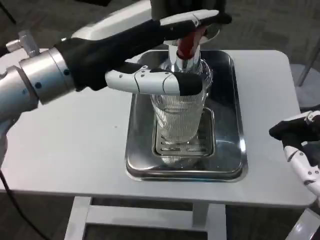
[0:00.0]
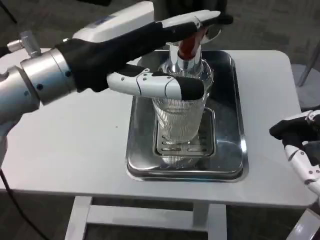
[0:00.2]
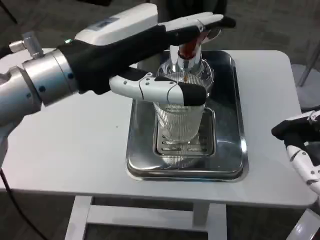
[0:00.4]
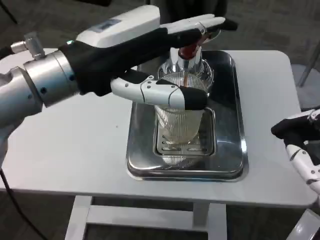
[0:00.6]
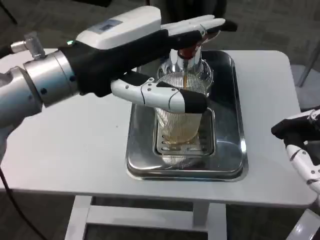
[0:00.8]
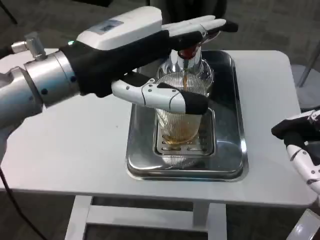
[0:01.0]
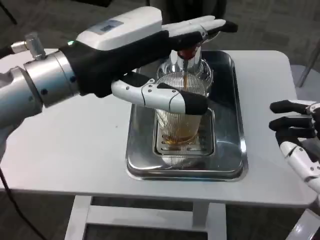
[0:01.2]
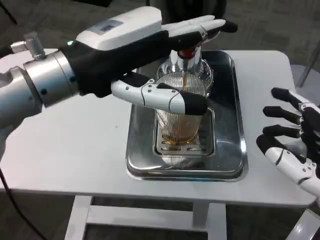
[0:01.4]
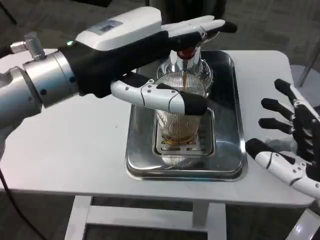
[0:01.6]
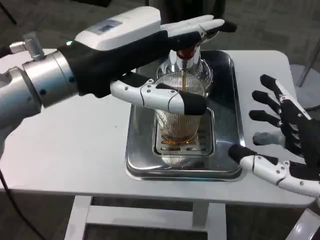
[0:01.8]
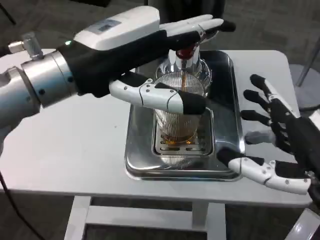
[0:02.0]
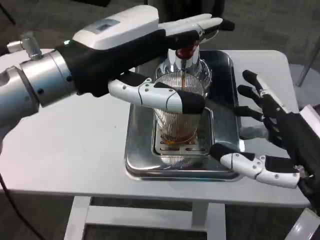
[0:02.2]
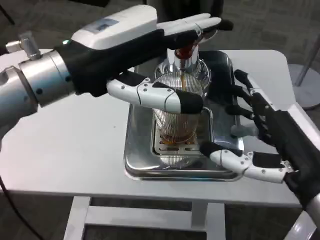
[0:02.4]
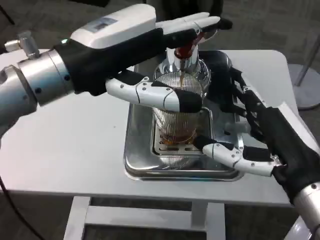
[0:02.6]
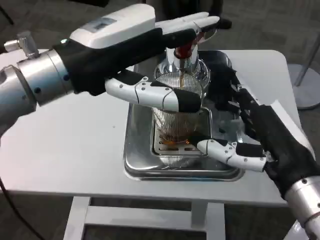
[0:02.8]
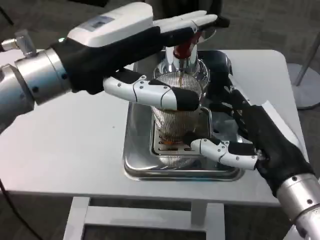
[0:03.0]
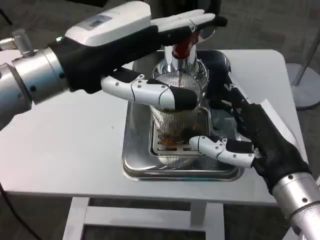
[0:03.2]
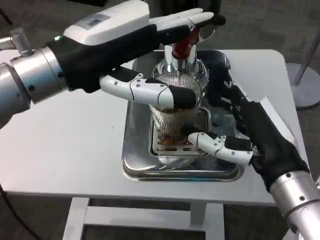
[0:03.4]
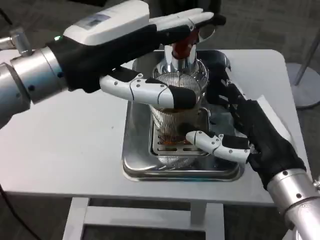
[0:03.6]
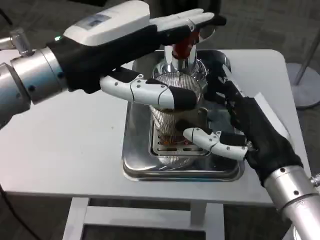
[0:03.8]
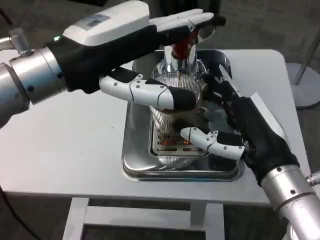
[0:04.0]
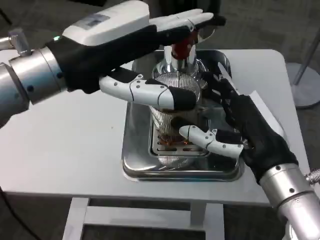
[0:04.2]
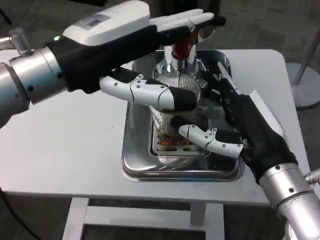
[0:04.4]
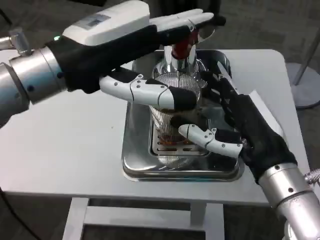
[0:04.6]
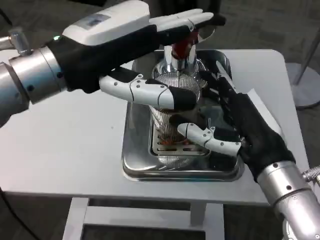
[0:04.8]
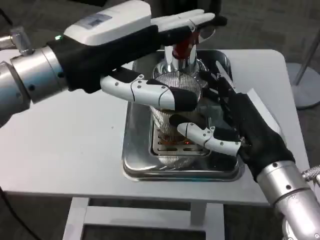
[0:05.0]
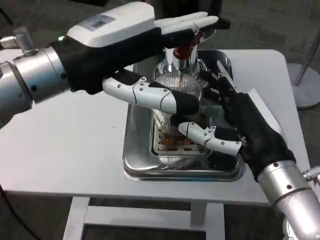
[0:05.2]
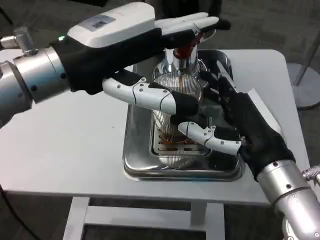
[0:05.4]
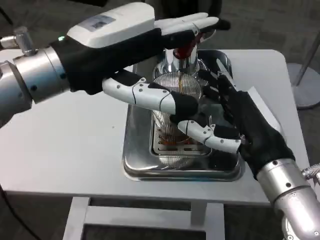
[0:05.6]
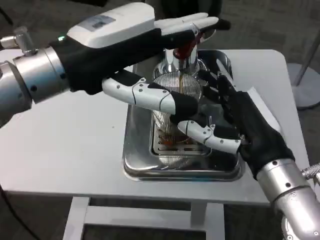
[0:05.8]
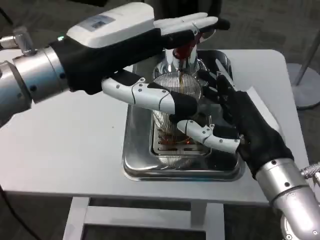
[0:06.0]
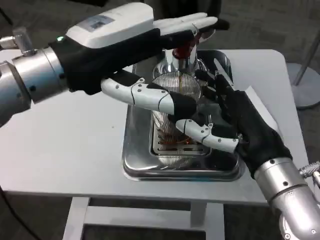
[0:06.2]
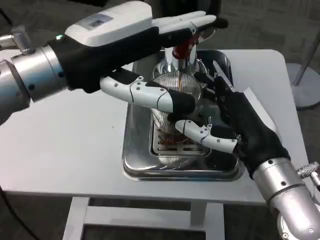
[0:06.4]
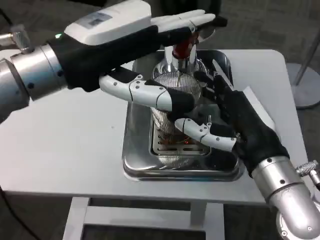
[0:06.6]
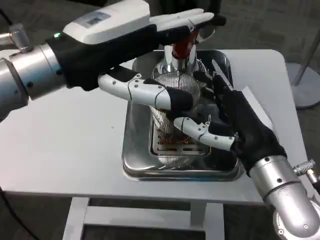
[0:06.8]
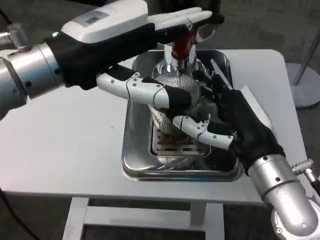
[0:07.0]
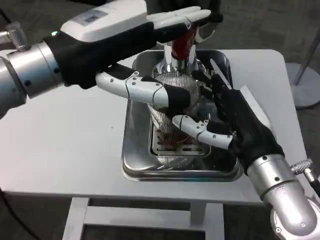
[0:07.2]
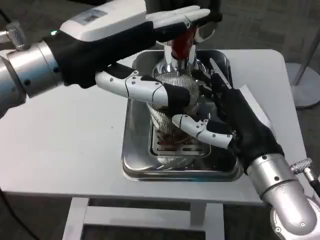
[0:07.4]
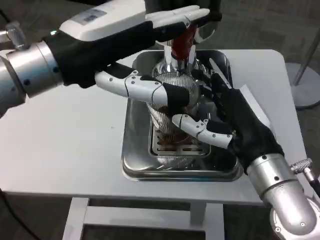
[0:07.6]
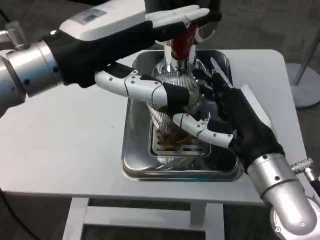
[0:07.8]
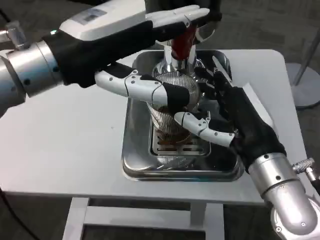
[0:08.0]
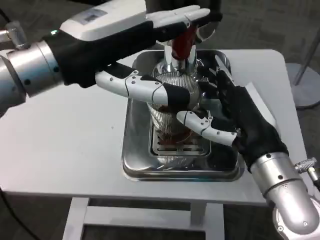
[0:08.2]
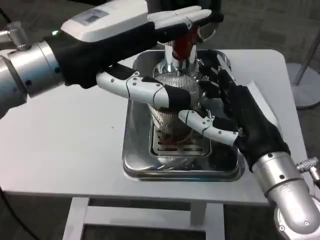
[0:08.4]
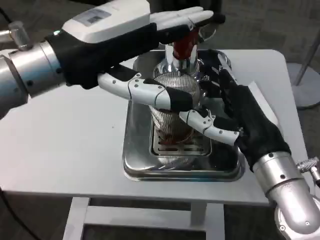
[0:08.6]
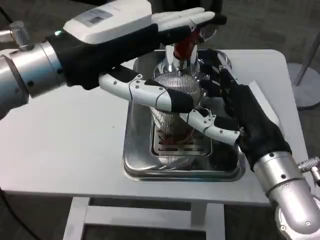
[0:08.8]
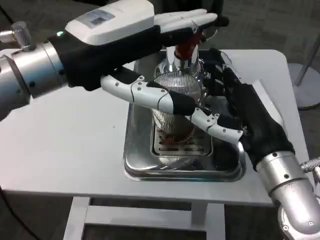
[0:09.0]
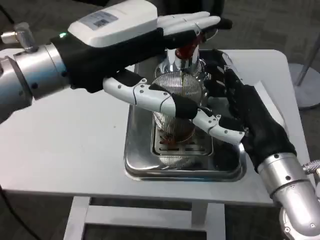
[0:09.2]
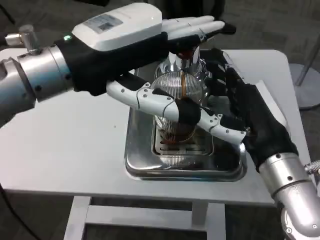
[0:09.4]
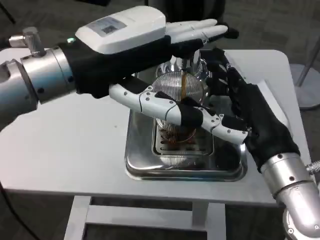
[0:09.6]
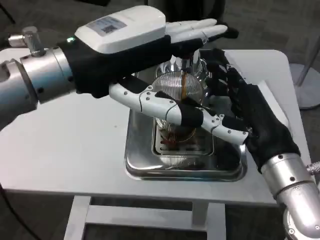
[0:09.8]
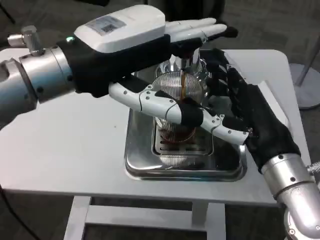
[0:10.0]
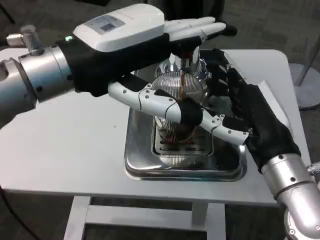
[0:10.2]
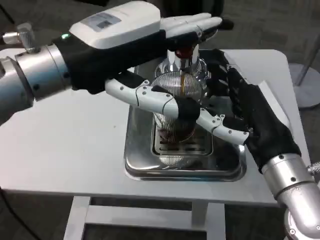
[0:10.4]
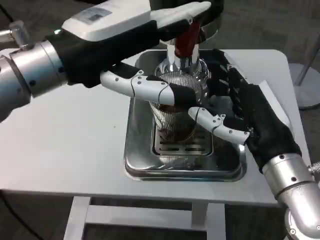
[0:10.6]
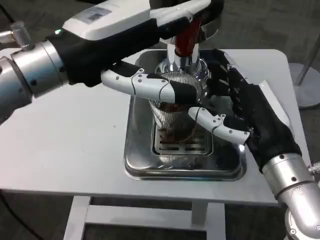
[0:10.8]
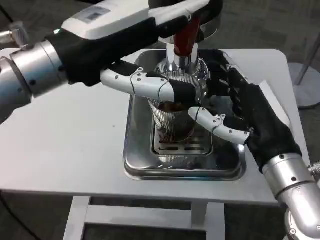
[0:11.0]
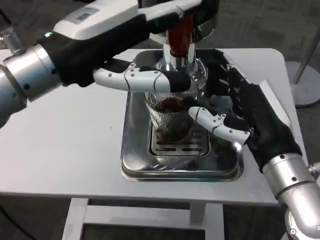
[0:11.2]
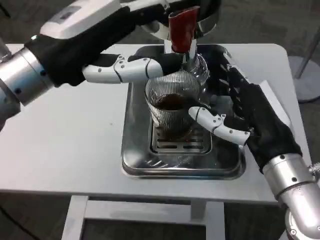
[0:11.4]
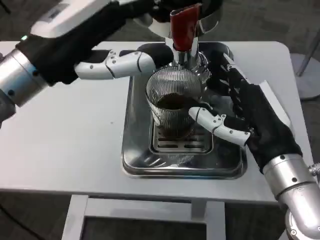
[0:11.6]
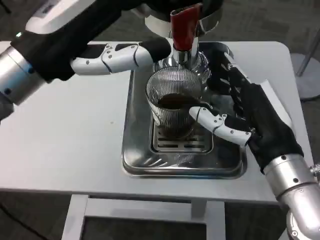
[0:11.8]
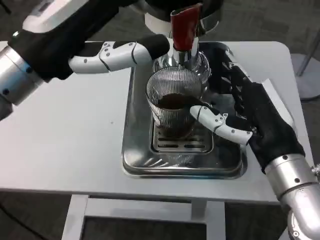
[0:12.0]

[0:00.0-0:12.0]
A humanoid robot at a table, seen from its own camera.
Task of the whole recording: Grasp the cup under the faucet to collect the drink, then remove the cup.
0:01.6 to 0:03.0: The right hand goes approximately 10 cm forward and to the left.
0:04.4 to 0:06.0: Neither hand changes place.
0:09.0 to 0:10.4: Both hands stay about where they are.

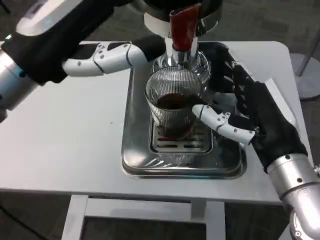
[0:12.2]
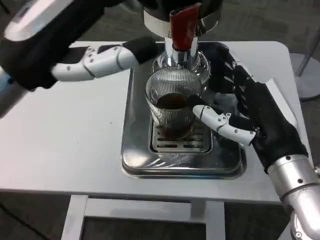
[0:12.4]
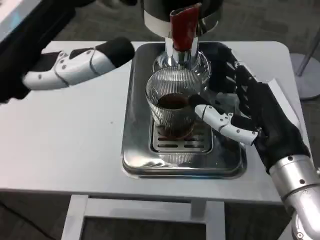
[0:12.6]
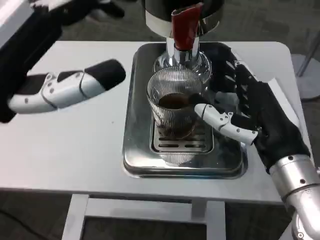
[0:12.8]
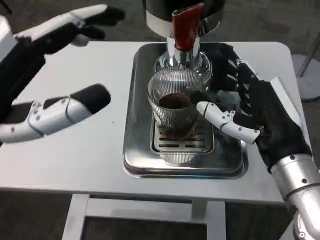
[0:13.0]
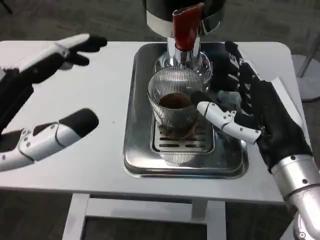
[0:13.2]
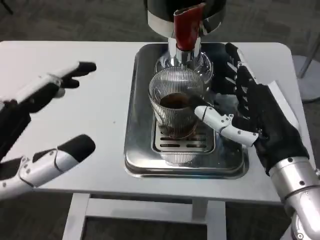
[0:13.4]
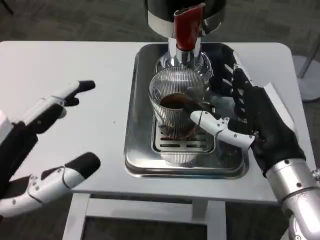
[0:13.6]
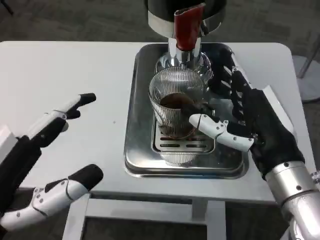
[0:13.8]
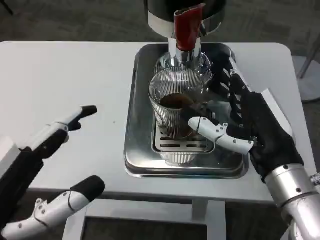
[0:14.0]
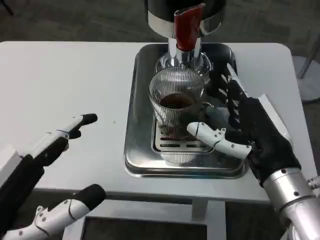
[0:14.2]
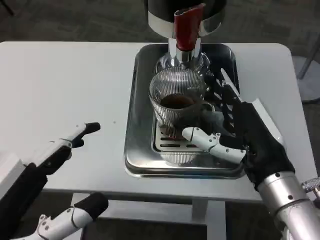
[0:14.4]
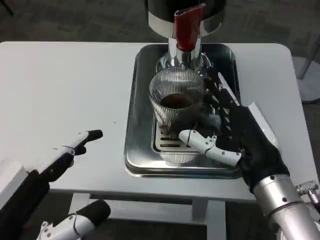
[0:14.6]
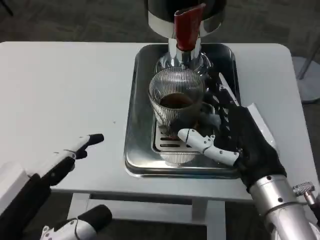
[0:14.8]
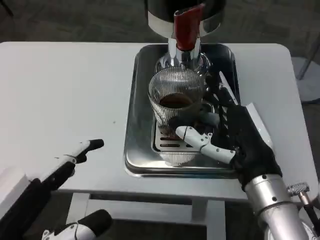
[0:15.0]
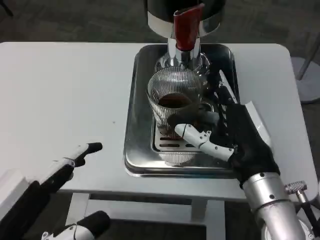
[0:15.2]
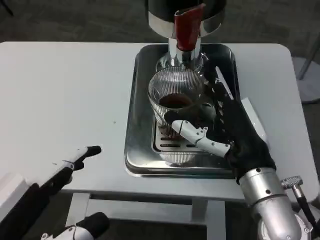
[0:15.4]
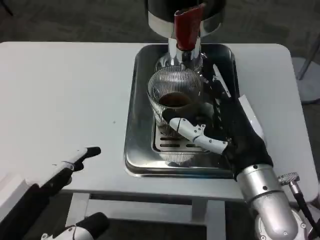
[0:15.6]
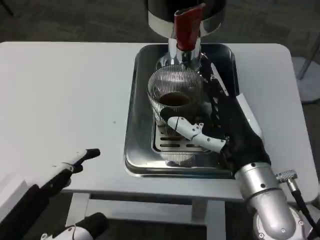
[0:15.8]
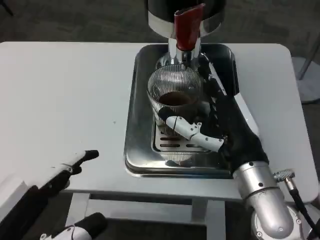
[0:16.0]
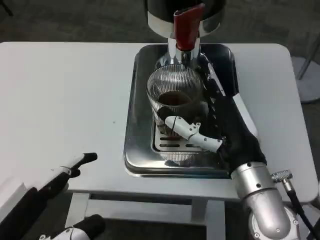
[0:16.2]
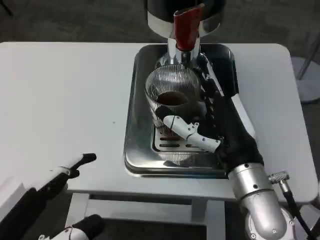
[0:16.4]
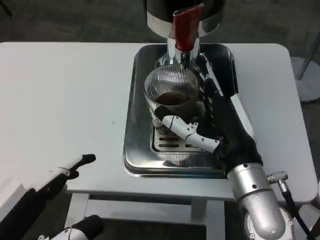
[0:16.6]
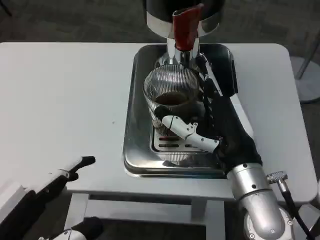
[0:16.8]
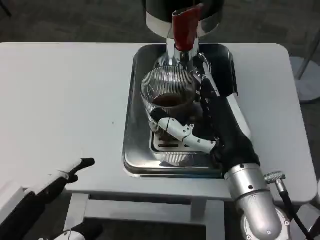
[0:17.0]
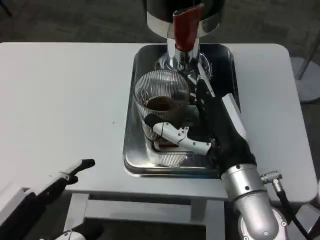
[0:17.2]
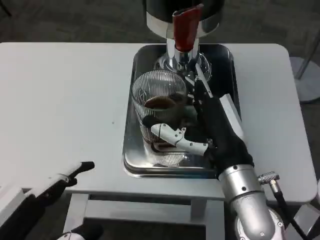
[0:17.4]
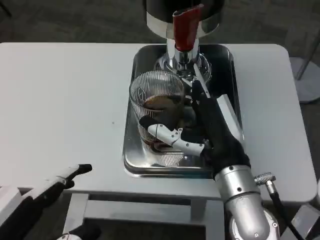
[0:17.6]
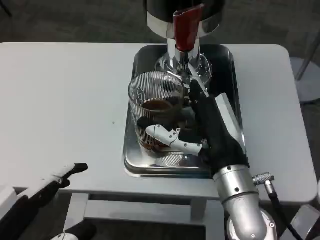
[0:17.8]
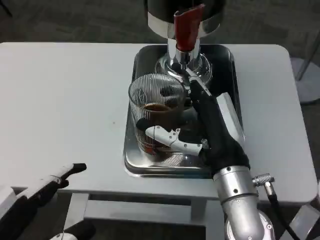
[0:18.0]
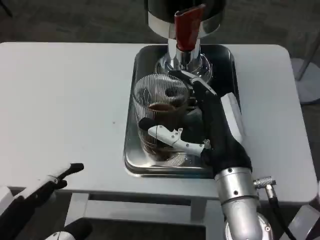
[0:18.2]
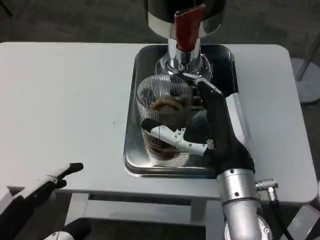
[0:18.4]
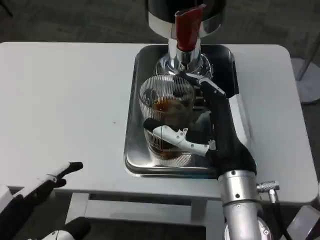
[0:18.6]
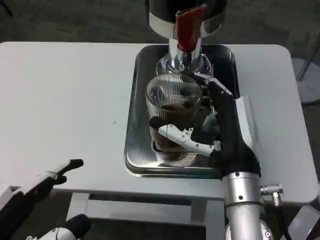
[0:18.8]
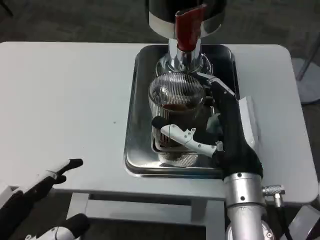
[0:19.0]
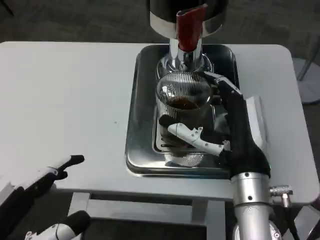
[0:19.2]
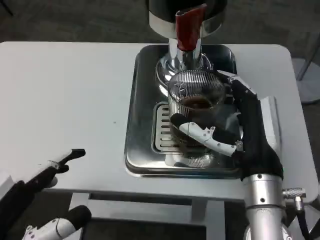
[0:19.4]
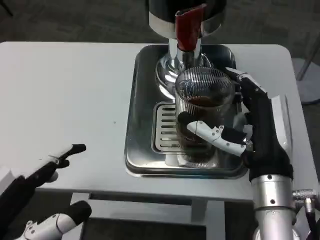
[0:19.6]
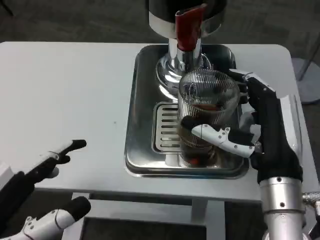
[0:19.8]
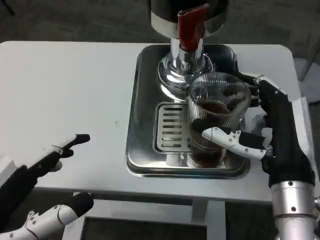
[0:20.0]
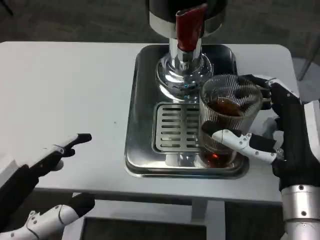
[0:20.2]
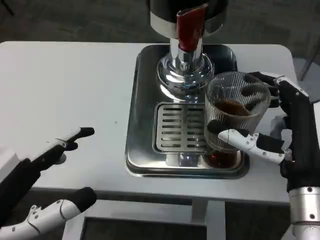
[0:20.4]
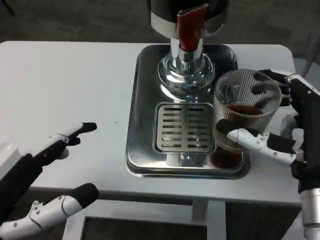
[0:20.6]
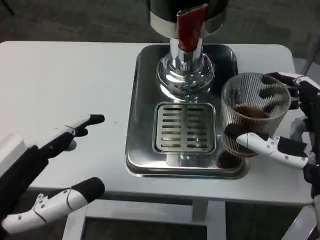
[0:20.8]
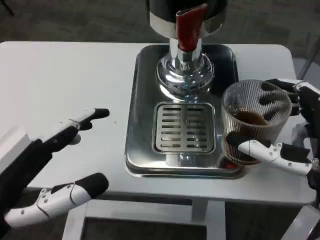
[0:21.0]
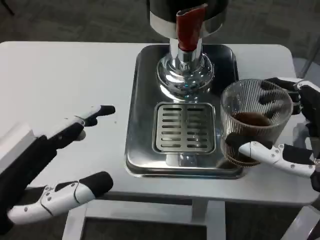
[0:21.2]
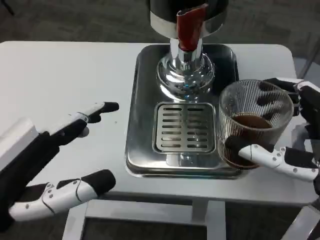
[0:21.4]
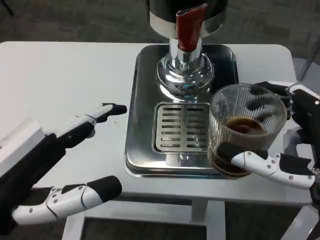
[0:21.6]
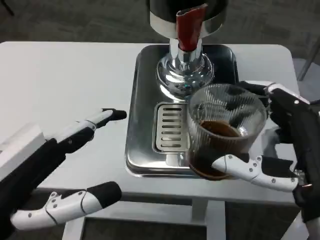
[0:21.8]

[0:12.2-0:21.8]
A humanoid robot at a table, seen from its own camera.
Task of the whole recording: Grasp the cup under the faucet to collect the drink, then remove the cup.
0:12.2 to 0:13.8: The left hand moves backward and downward, approximately 20 cm.
0:15.4 to 0:18.6: The hands make only small movements.
0:18.6 to 0:20.2: The right hand heads to the right, covering about 5 cm.
0:20.2 to 0:21.8: The right hand goes approximately 5 cm backward.

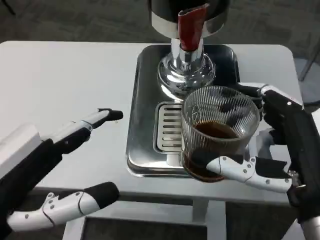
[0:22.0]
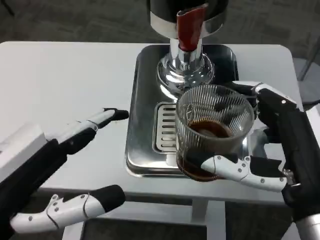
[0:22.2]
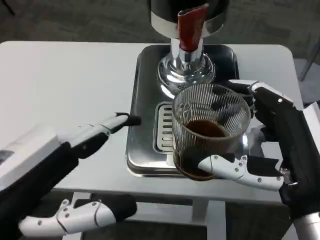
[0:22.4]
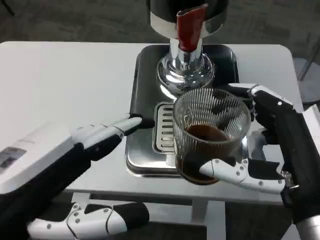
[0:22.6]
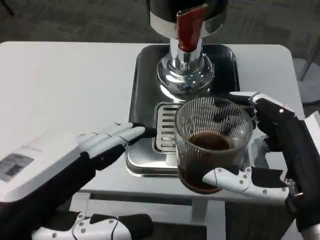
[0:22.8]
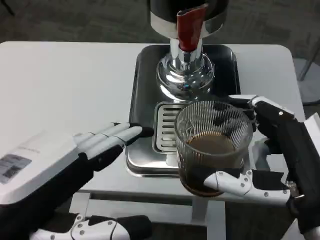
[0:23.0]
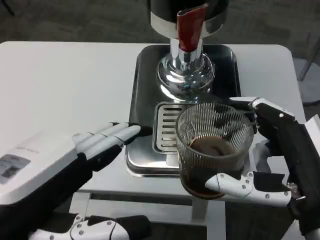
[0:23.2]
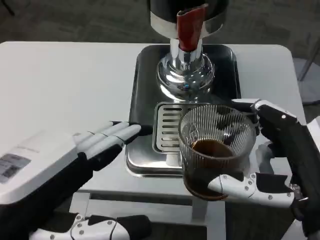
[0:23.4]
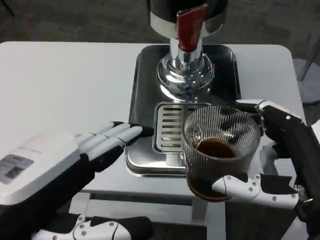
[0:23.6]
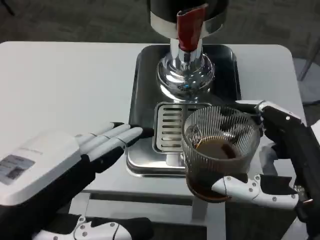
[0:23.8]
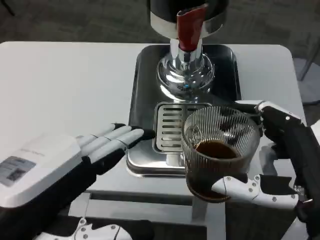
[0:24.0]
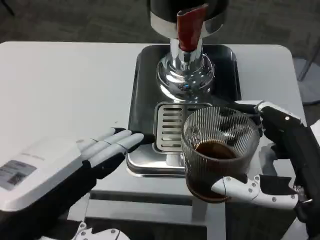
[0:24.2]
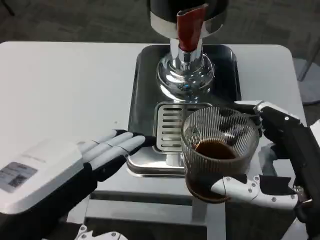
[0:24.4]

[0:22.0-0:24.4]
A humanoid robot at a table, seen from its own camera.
Task of the whole recording: Grasp the cup under the faucet to collect the drink, then remove the cup.
0:23.2 to 0:24.4: Neither hand changes place.
